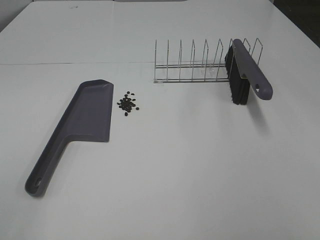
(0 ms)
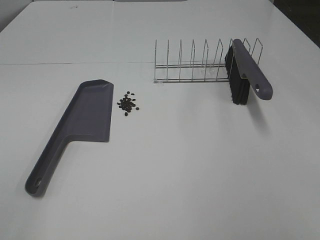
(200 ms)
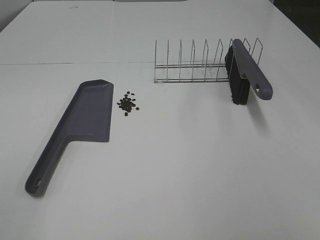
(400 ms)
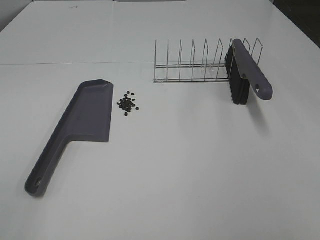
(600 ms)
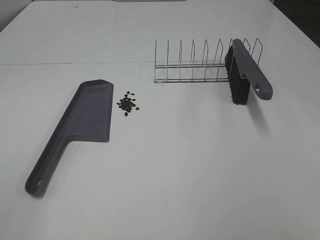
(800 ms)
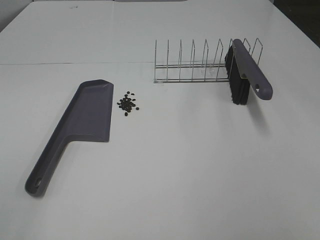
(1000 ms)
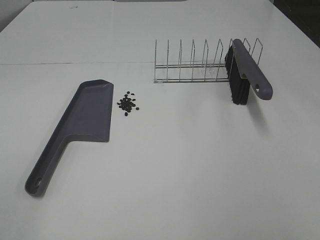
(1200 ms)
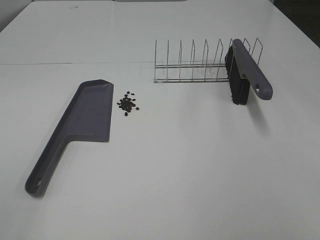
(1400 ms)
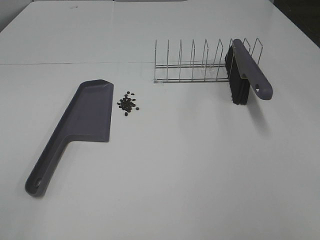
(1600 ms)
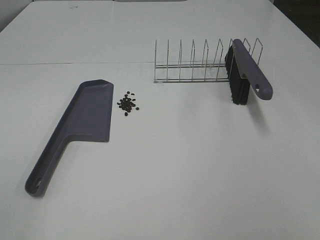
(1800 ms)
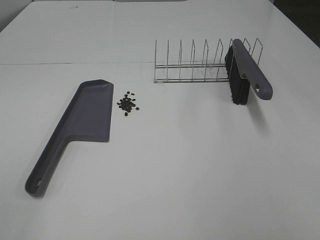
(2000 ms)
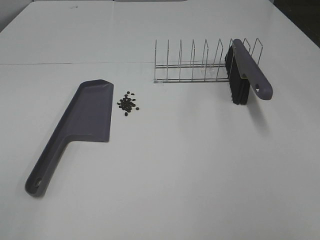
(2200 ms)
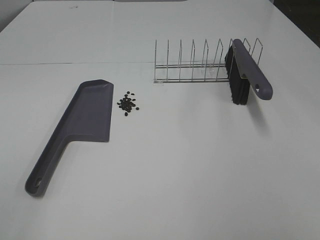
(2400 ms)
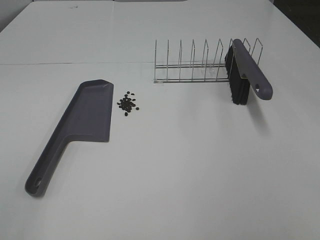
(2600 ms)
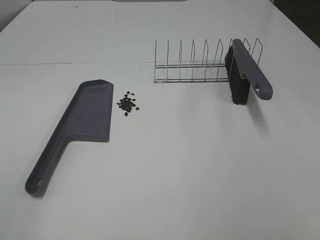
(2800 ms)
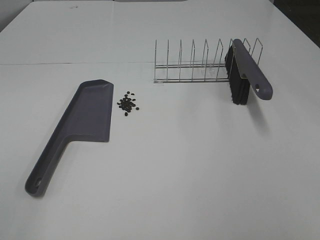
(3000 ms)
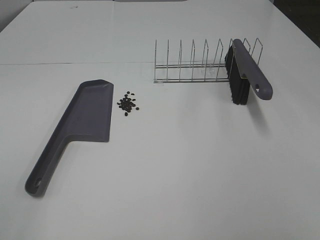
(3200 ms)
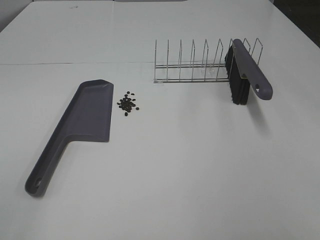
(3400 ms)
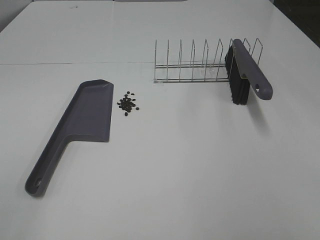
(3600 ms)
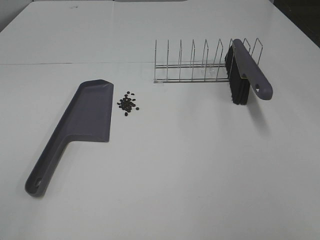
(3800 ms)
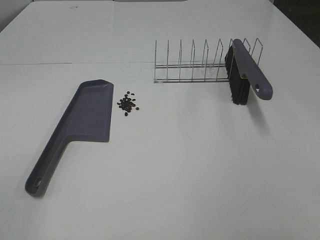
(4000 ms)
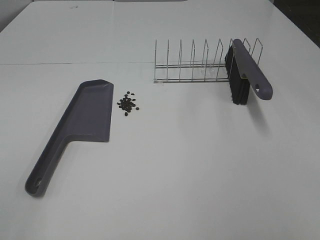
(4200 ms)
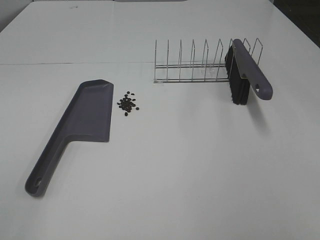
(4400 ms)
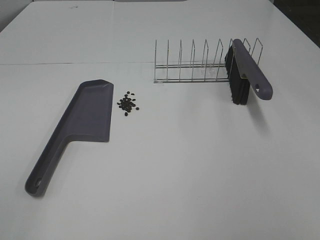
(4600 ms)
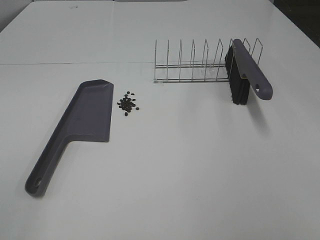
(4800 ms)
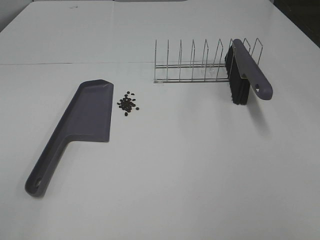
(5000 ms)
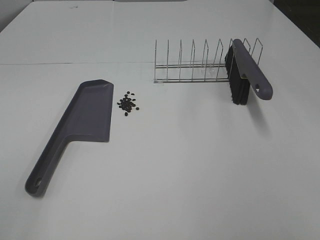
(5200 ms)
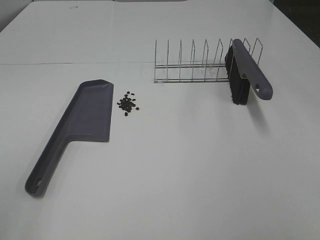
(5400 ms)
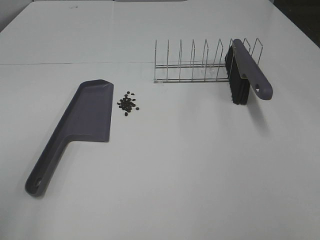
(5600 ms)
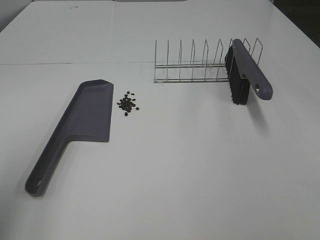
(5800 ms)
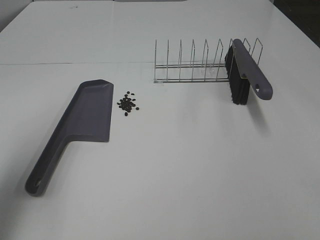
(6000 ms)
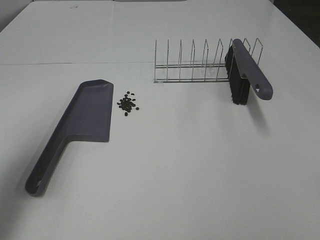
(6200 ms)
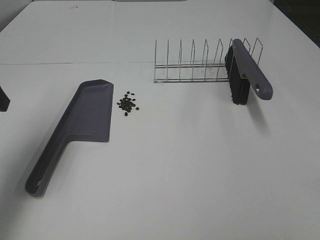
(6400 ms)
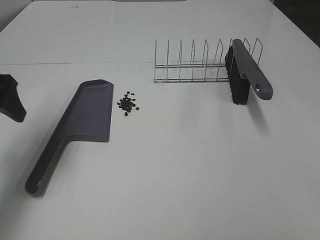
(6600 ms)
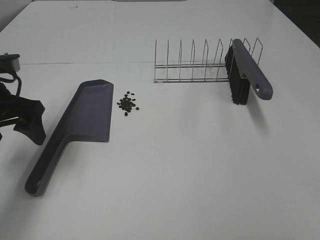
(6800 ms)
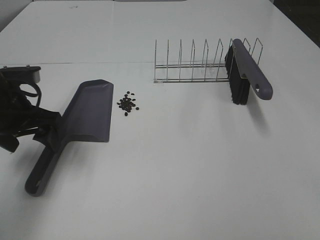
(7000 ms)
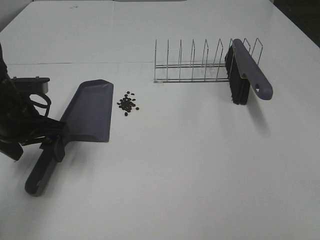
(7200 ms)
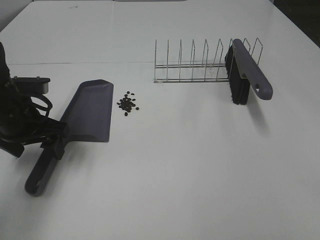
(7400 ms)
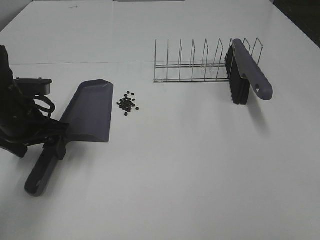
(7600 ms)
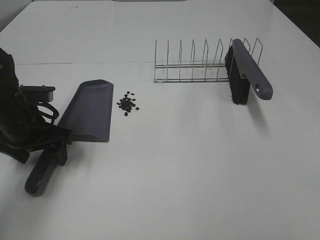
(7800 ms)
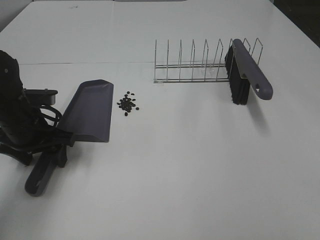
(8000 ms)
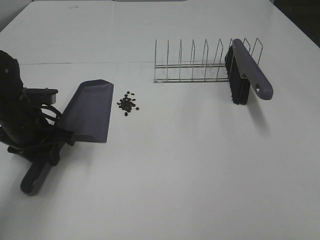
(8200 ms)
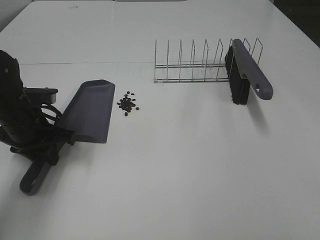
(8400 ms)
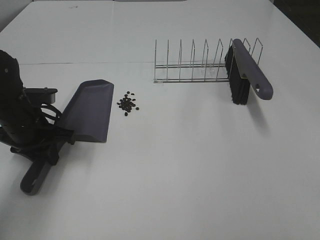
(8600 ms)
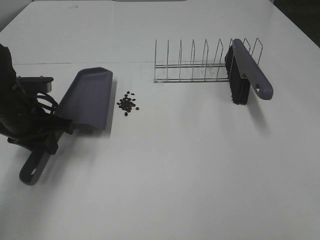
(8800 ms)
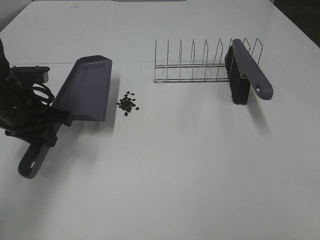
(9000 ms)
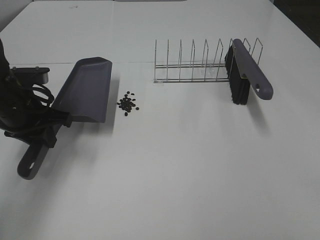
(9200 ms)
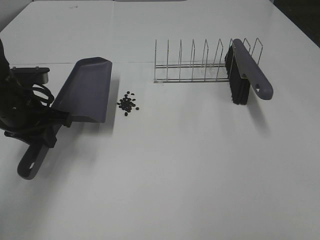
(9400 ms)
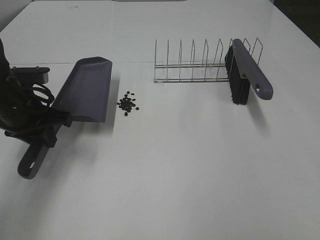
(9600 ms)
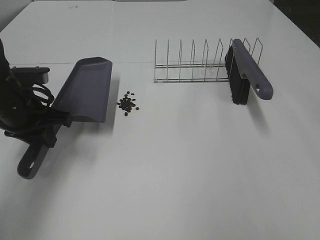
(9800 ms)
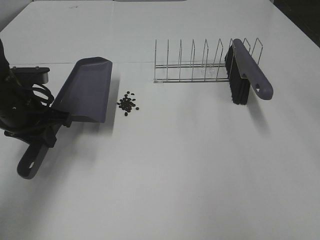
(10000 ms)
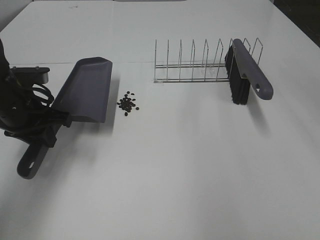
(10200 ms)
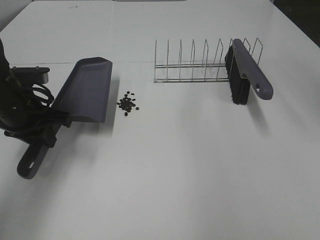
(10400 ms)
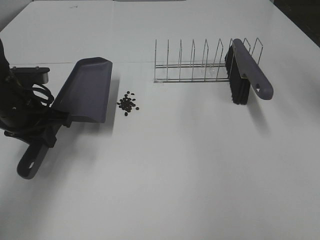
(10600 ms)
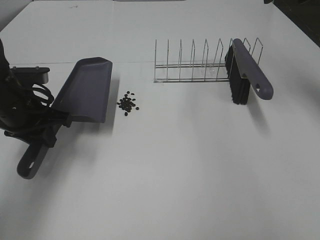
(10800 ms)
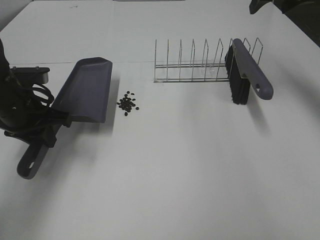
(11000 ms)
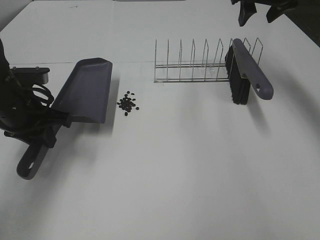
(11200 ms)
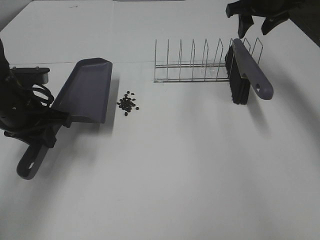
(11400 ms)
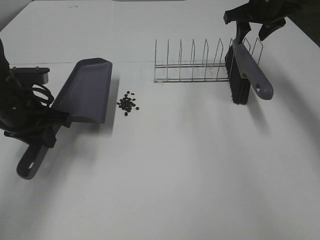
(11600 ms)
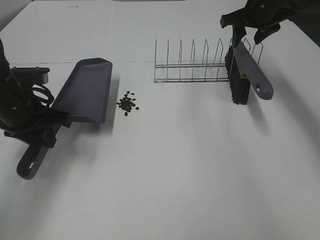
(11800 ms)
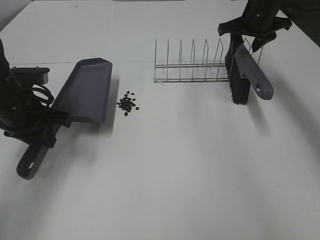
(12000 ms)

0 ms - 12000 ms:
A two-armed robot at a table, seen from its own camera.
Task of the whole recording: Sweep Coffee Bean.
Step, 0 ms - 8400 ms: Left hand: grab the dustpan.
0 ms - 4400 ms: The two grippers keep their place.
4400 ms - 6000 ms: The left gripper is displaced forward by some 20 cm.
6000 ms - 7600 ms: The left gripper travels downward and forward by about 20 cm.
7600 ms - 9000 ms: The left gripper closes up.
10400 ms - 12000 ms: The right gripper is displaced forward and downward by approximately 30 cm, and closes.

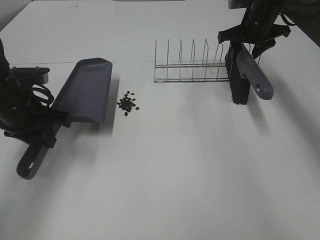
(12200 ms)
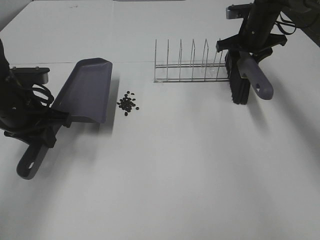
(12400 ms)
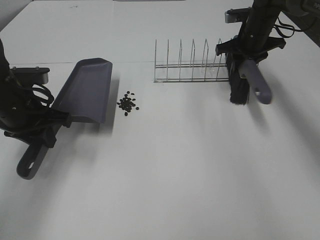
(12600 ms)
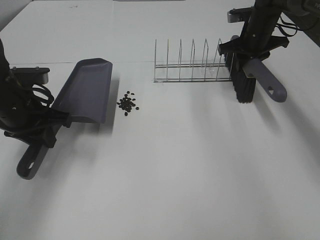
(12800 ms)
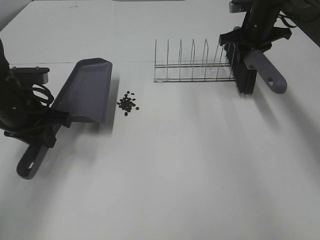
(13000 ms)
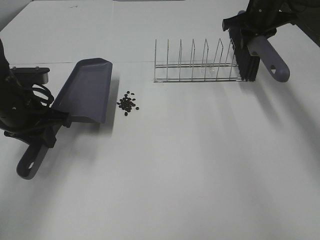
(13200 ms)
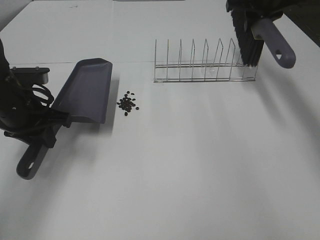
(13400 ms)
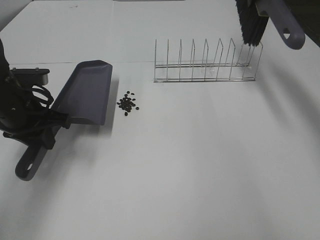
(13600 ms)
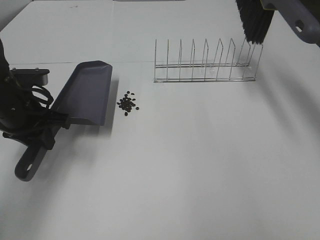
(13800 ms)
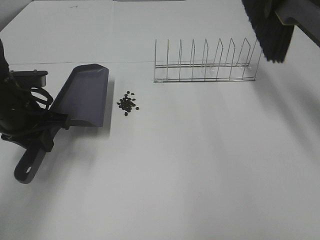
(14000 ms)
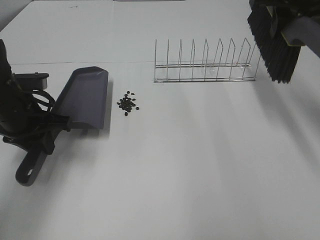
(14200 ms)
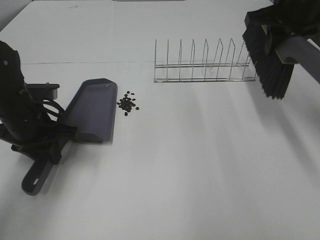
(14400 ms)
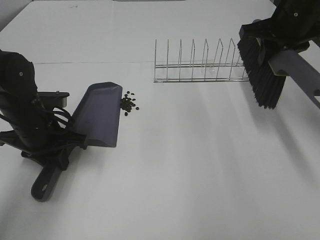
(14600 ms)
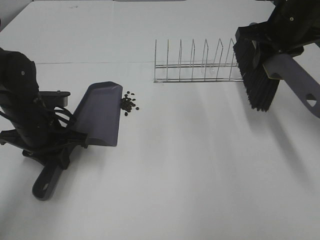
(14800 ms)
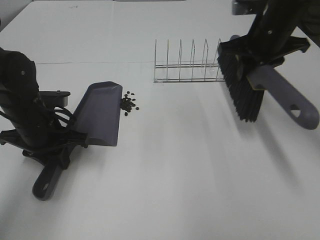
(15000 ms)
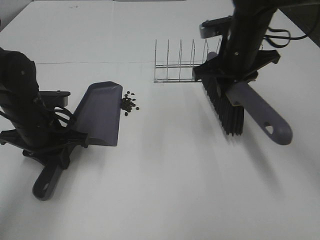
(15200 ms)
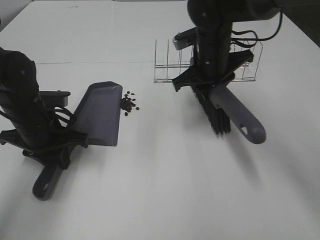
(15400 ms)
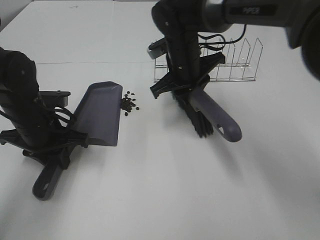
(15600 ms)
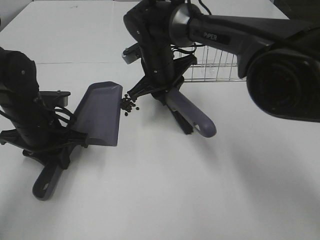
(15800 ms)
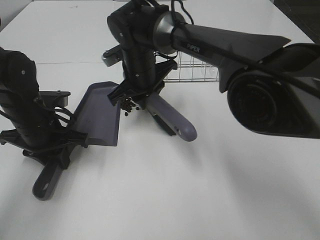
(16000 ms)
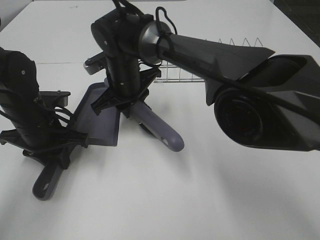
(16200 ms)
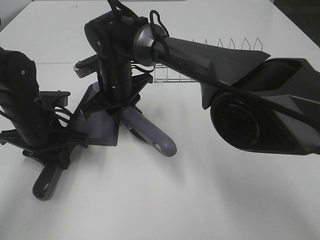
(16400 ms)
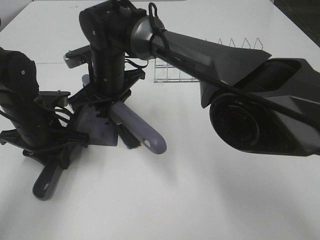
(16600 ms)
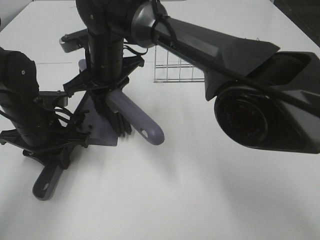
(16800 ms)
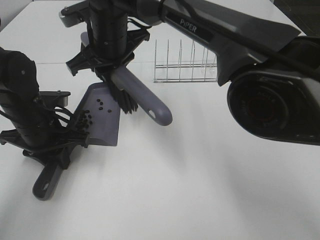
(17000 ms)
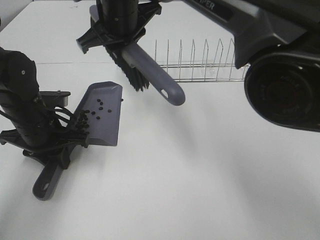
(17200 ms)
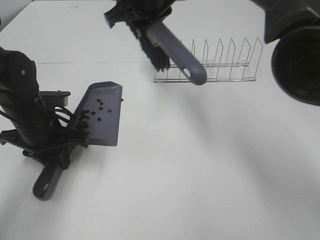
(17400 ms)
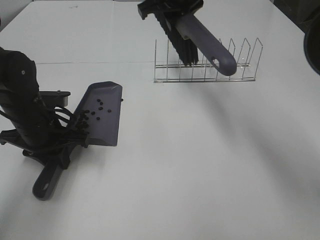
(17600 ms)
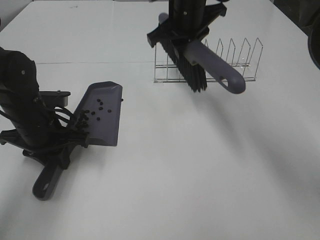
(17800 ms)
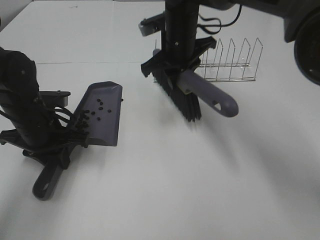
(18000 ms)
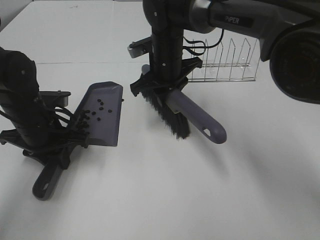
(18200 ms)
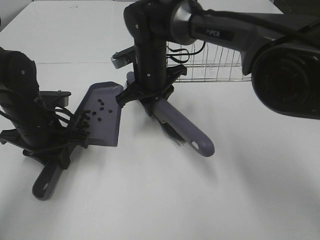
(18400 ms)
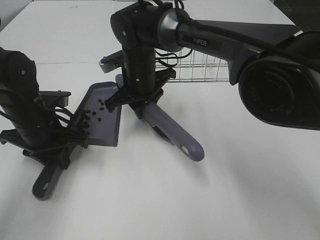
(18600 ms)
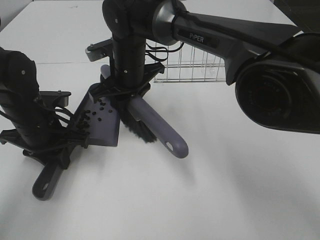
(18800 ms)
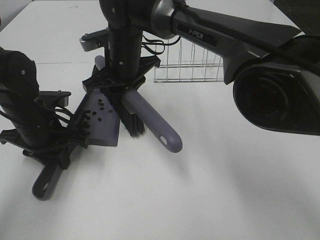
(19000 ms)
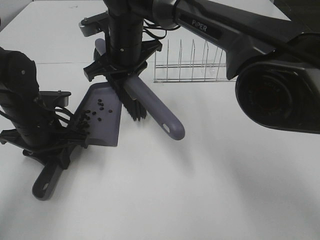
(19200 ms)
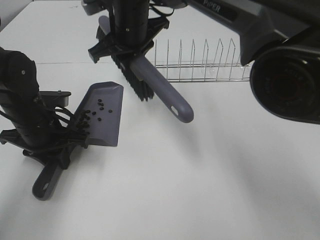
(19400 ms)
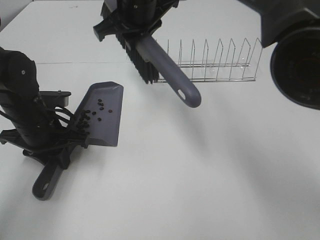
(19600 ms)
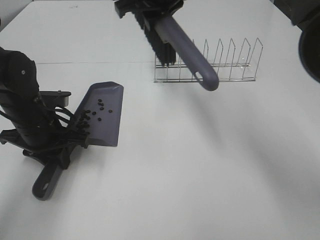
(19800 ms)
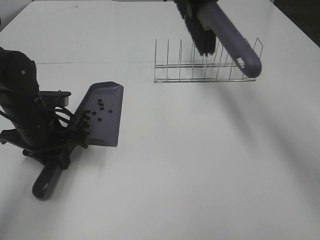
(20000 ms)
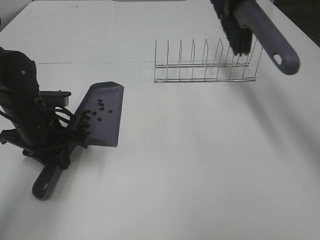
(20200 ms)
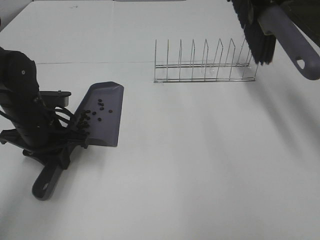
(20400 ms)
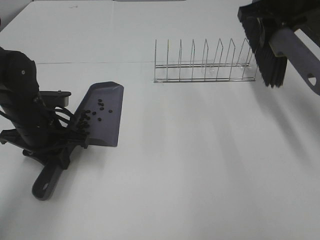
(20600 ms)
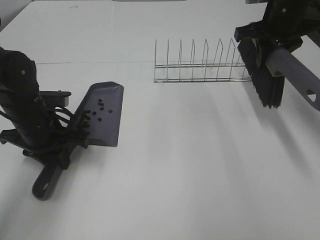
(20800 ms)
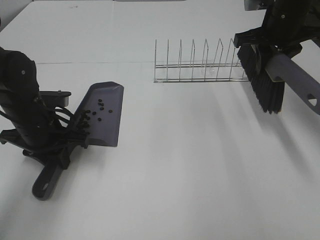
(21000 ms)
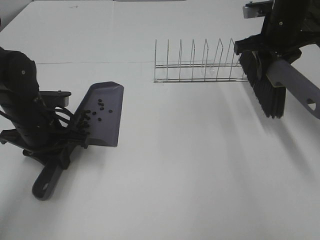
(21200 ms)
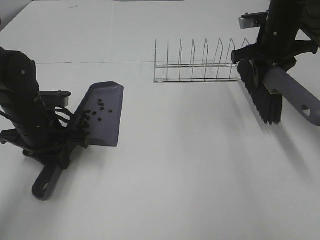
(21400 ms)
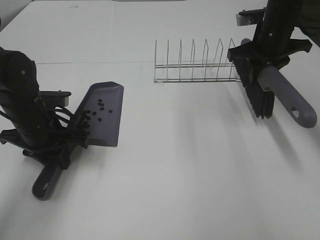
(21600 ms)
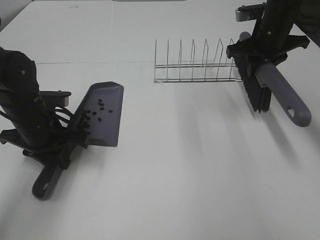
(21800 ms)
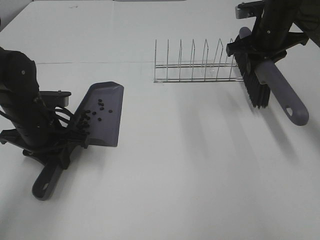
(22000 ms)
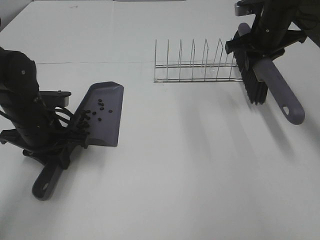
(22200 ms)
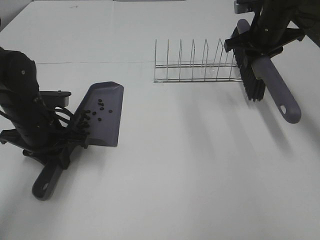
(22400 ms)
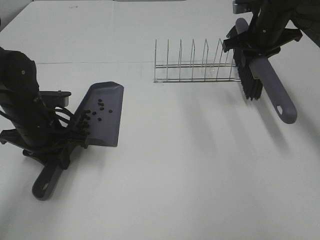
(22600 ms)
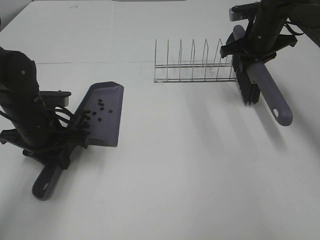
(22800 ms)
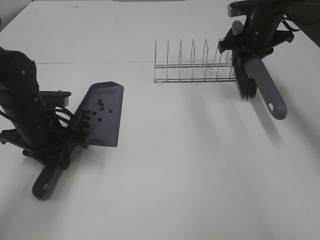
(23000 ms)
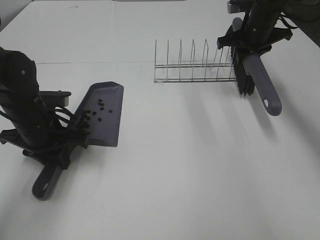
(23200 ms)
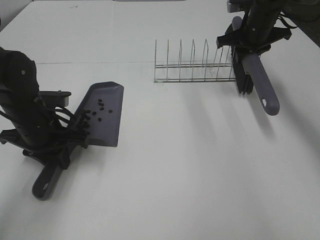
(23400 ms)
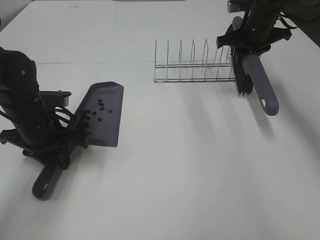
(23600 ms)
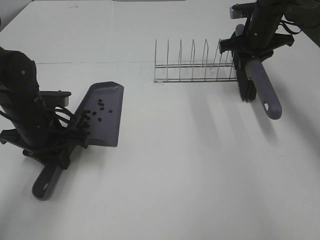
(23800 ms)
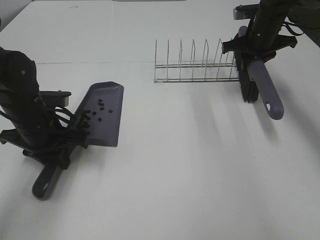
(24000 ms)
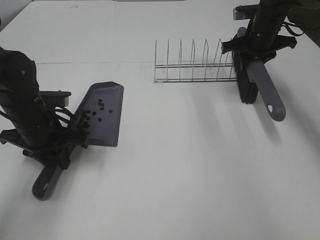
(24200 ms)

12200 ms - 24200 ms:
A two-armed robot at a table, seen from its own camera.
Task of the whole recording: Sweep Coffee Bean.
Step, 12800 ms - 19000 ms: Right hand:sweep the coffee beans into the dustpan.
12200 ms - 13800 ms: The right gripper heads upward, covering approximately 15 cm, and closes.
13800 ms - 15200 ms: The right gripper shifts about 20 cm downward, to the left and backward. The left gripper moves roughly 5 cm.
15200 ms - 16600 ms: The right gripper moves to the left, roughly 20 cm.
16600 ms - 18200 ms: The right gripper goes some 10 cm to the right.
18200 ms - 19800 ms: The right gripper moves upward, some 15 cm.
19800 ms - 21200 ms: The right gripper shifts about 20 cm to the right.
21200 ms - 22600 ms: There are only small adjustments of the grippers.
22600 ms - 24200 ms: There are only small adjustments of the grippers.
